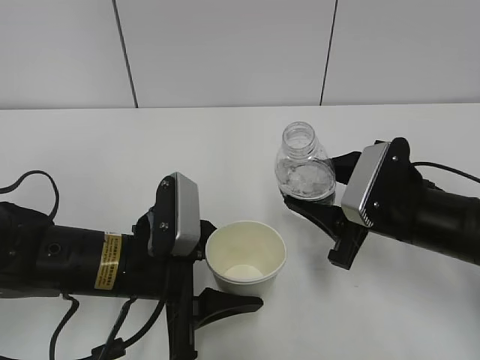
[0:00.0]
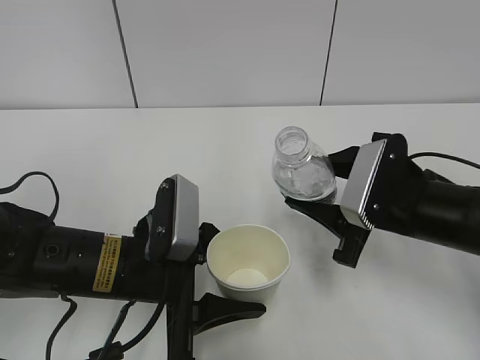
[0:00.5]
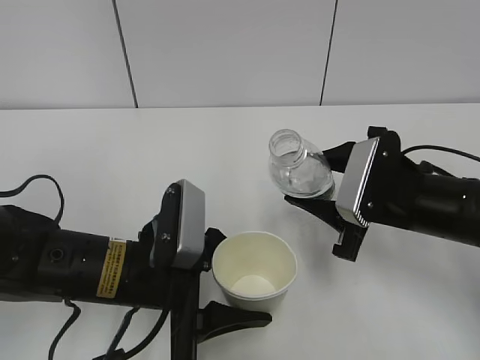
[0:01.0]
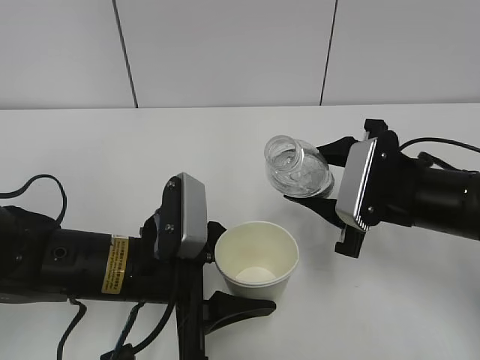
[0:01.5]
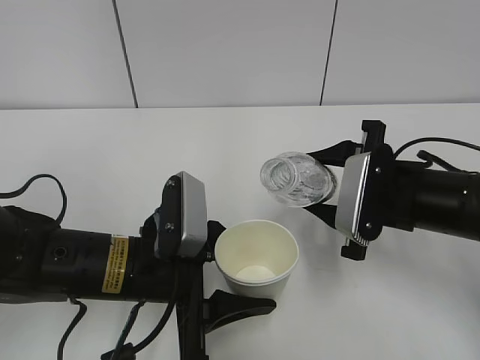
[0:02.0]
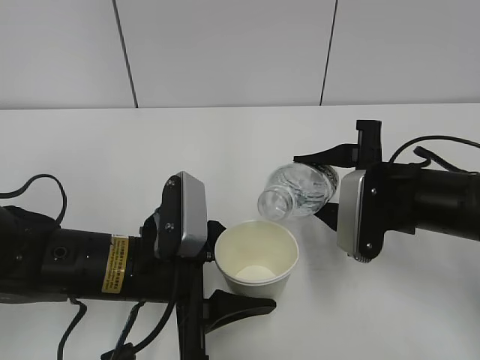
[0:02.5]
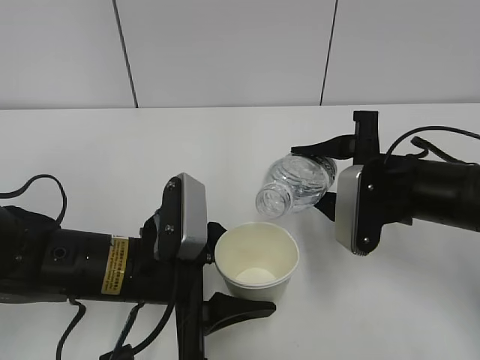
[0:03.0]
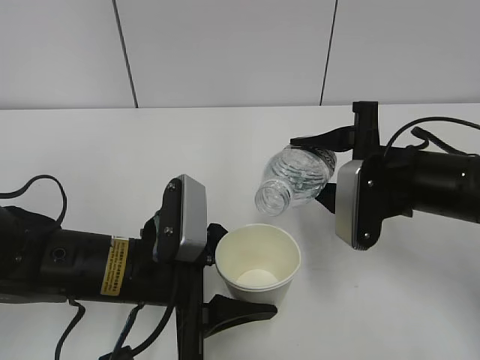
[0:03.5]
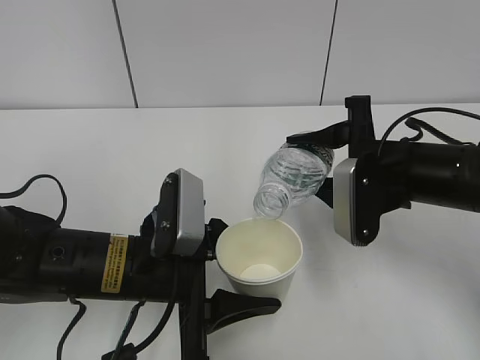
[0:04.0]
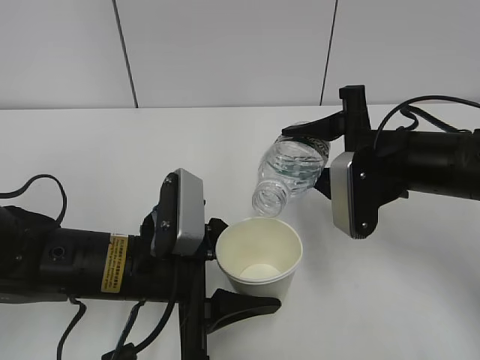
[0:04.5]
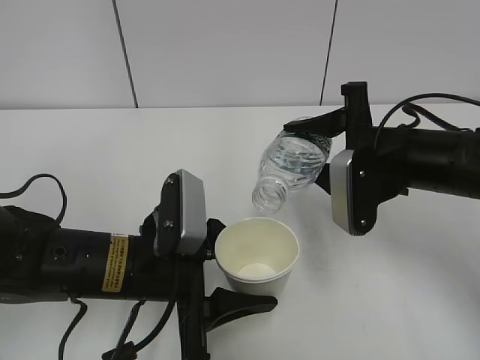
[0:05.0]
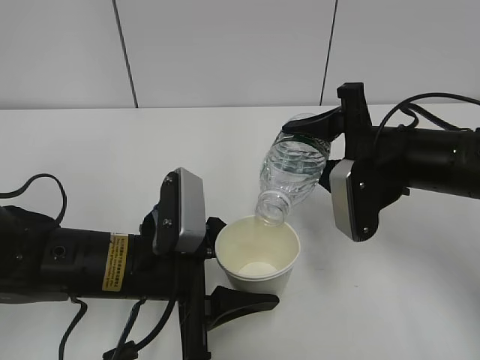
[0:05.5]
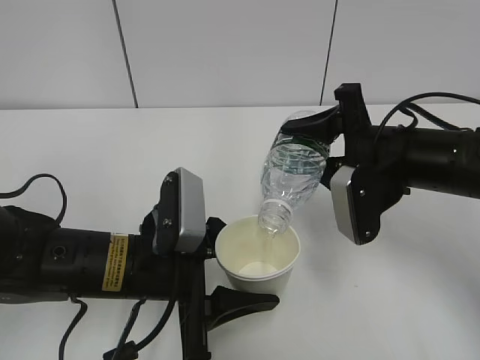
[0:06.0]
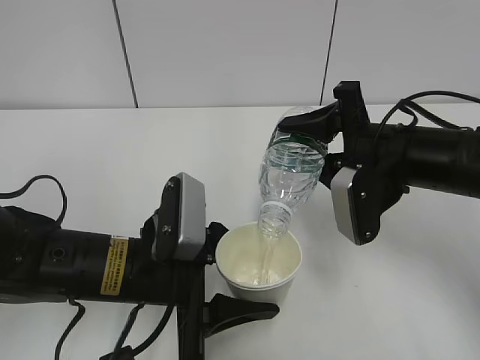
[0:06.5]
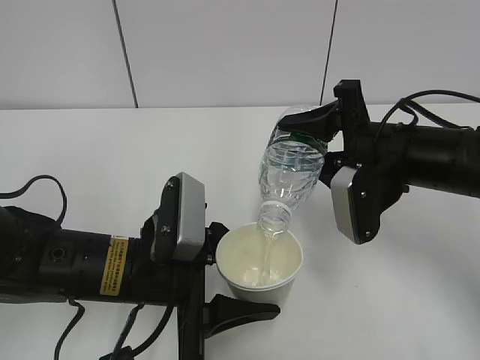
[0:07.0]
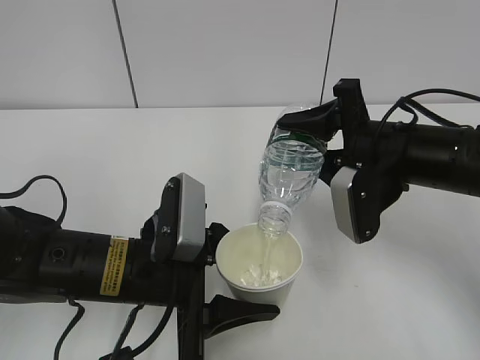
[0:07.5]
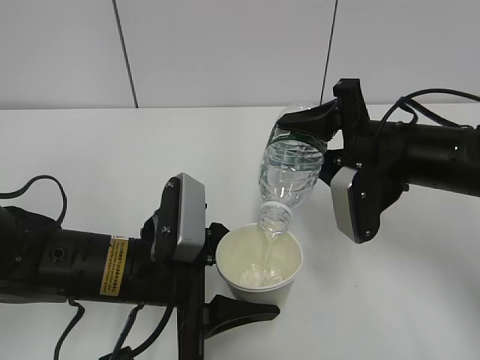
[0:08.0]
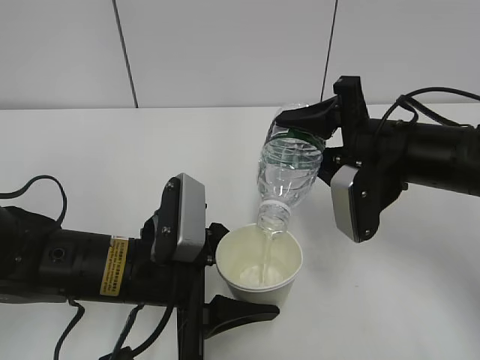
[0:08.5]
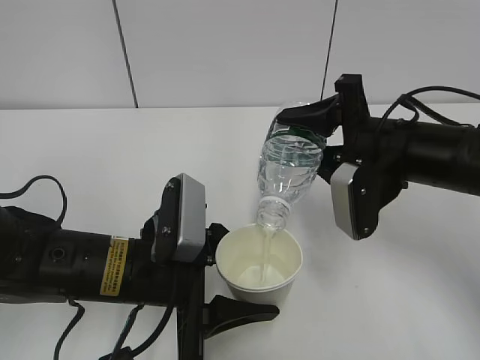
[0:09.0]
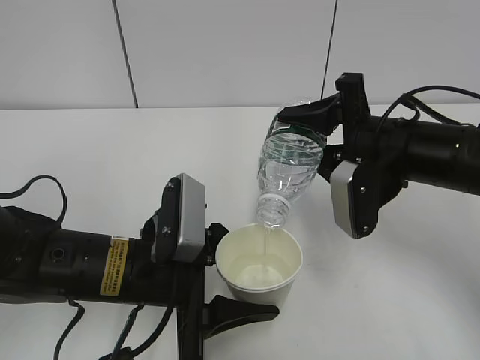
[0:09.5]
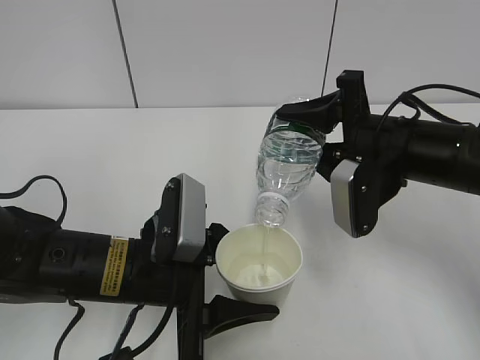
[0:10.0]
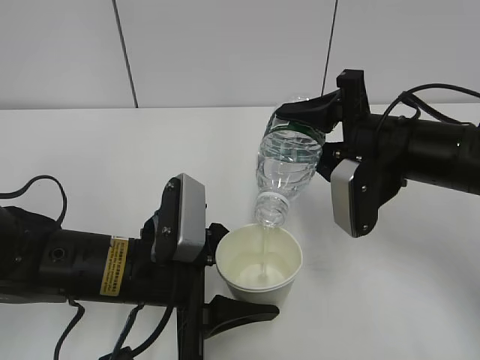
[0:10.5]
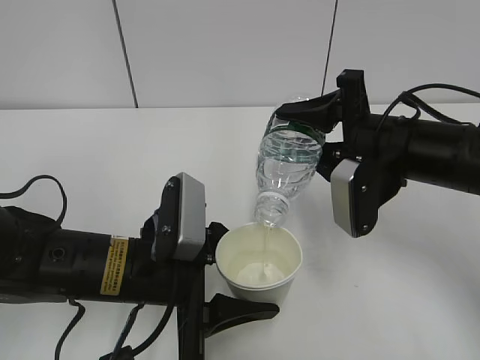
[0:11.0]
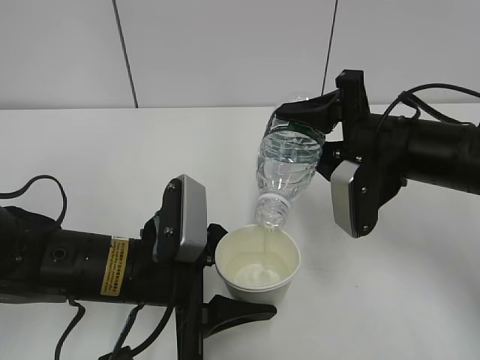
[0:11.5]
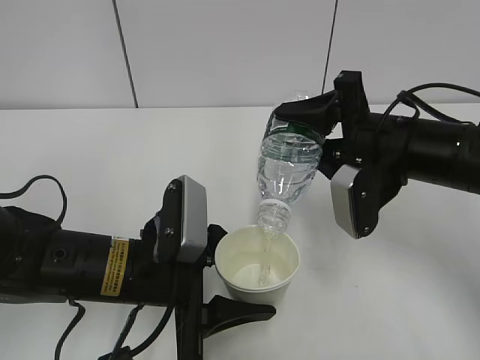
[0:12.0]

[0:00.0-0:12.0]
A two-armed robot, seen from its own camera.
Step, 0:01.5 to 0:07.0: Fill water with the left hand.
Step, 0:01.5 to 0:07.0: Pour water with the right hand.
Step, 0:07.5 to 0:08.5: Collect water with the right hand.
Step, 0:09.0 to 0:11.5: Place the water bottle with the right hand.
0:04.0 to 0:06.0: There are only small adjustments of the grippers.
0:06.0 to 0:08.0: Both grippers stay about where they are.
0:08.0 to 0:10.0: Both grippers stay about where they are.
0:10.0 to 0:12.0: The grippers move only a little.

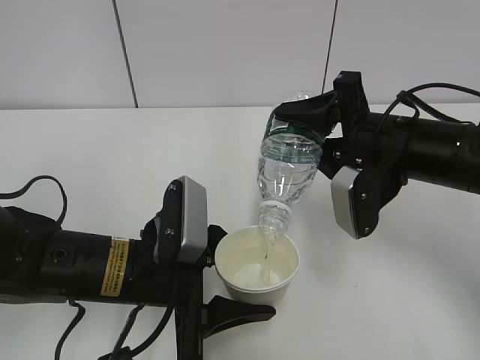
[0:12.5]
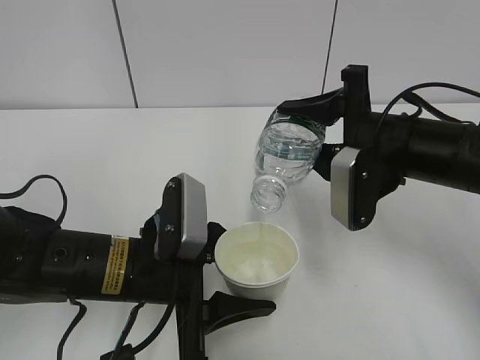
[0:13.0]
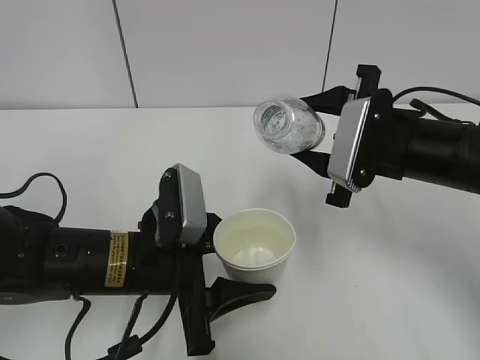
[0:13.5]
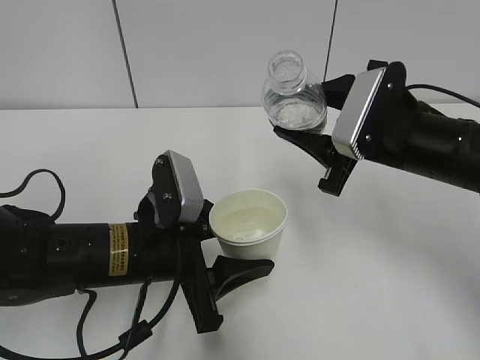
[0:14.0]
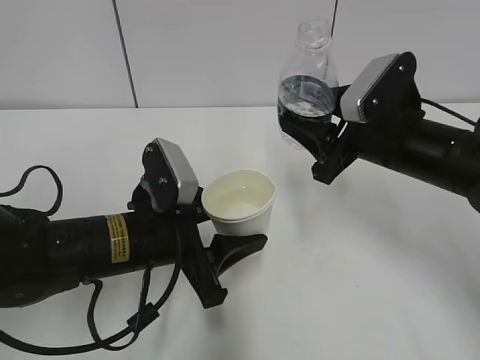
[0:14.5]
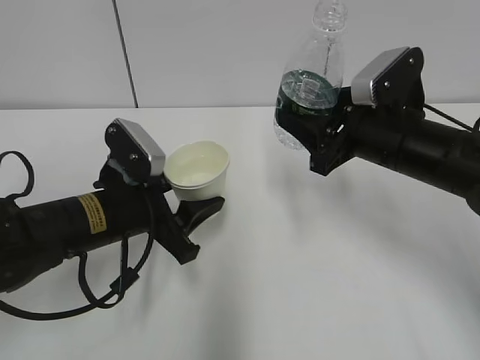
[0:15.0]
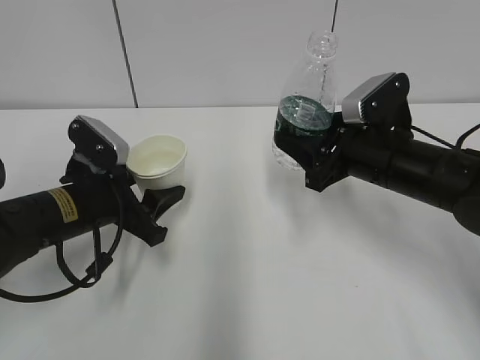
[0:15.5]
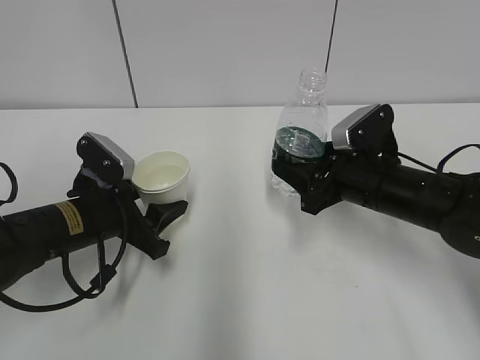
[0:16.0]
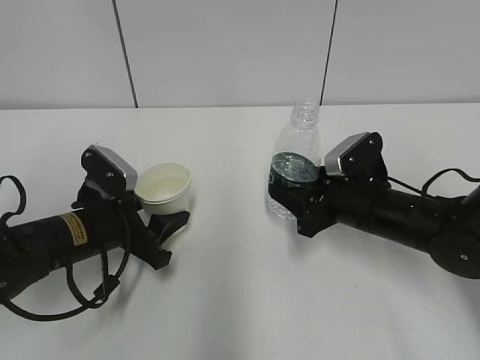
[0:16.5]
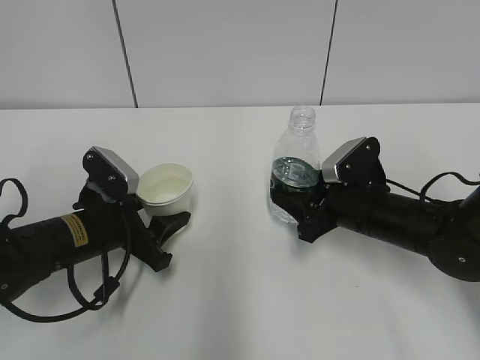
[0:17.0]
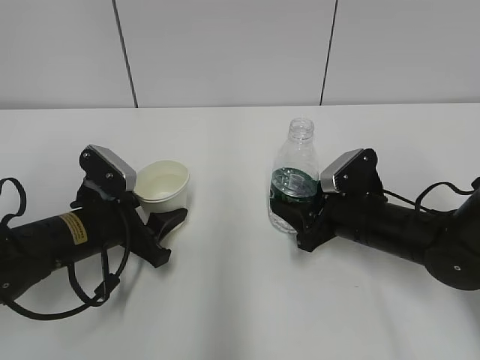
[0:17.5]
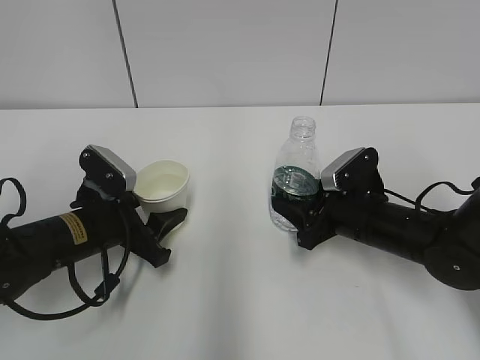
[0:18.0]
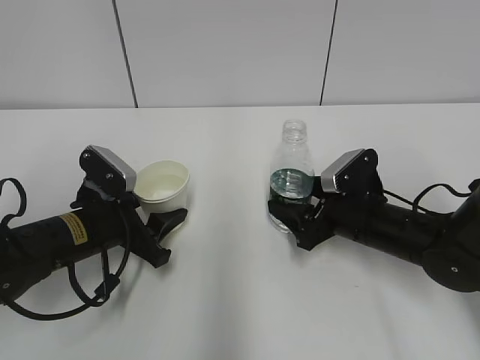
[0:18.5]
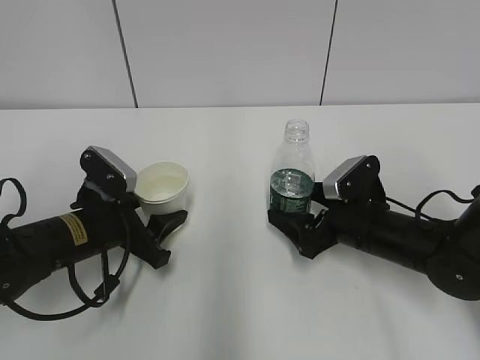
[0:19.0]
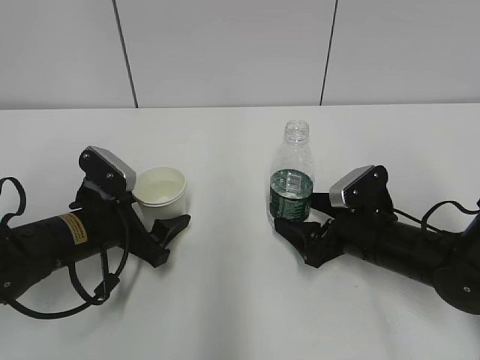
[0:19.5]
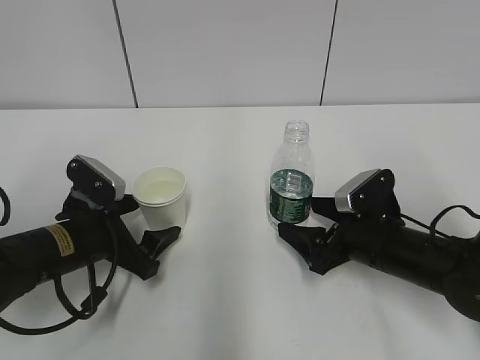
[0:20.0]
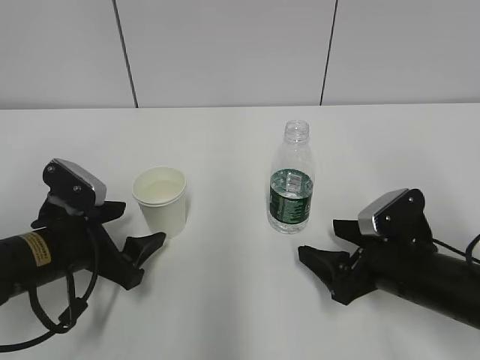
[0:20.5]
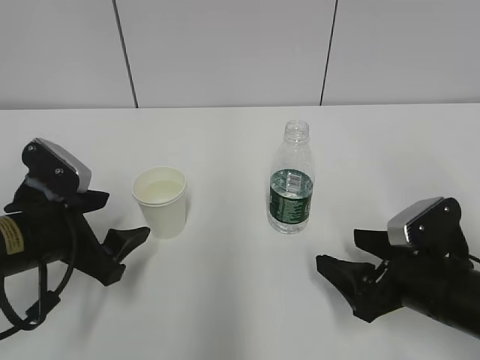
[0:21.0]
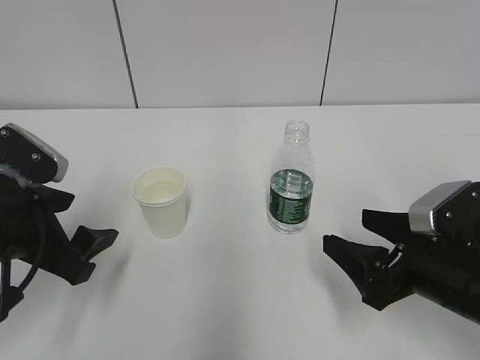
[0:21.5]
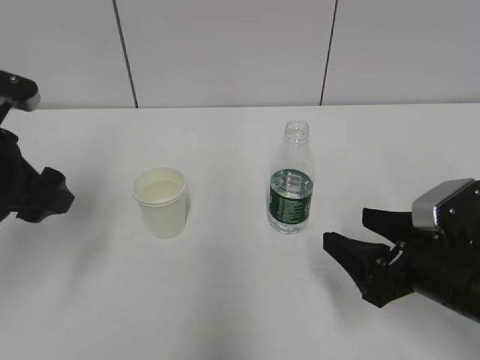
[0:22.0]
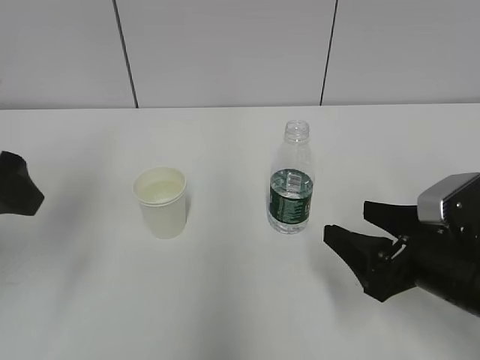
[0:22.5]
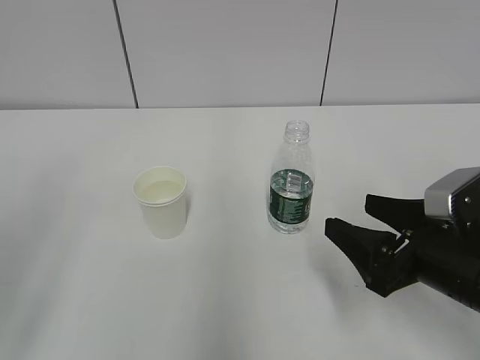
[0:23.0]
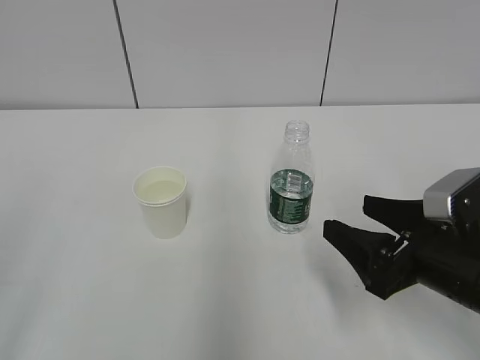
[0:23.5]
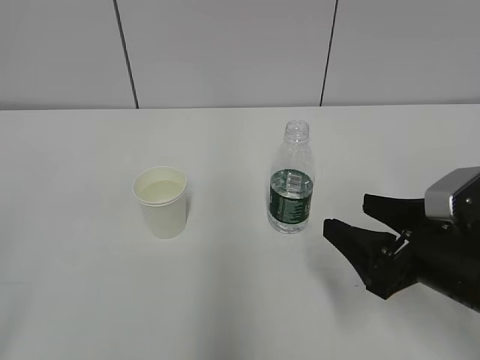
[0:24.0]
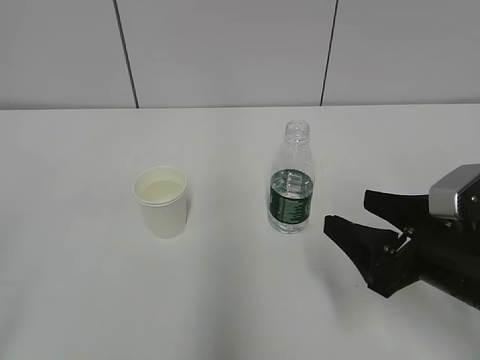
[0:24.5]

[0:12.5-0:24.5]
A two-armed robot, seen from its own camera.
0:14.5 to 0:16.5: The right gripper shifts roughly 10 cm downward. The left gripper shifts about 10 cm to the left and forward.
0:16.5 to 0:18.5: The right gripper opens up.
0:18.5 to 0:20.5: The left gripper opens up; the right gripper moves backward, approximately 10 cm.
0:20.5 to 0:22.5: The left gripper moves upward, approximately 20 cm, while the right gripper shifts about 5 cm upward.
0:22.5 to 0:24.5: The left gripper moves backward, approximately 25 cm.

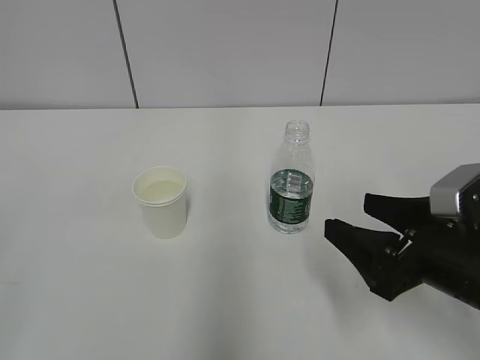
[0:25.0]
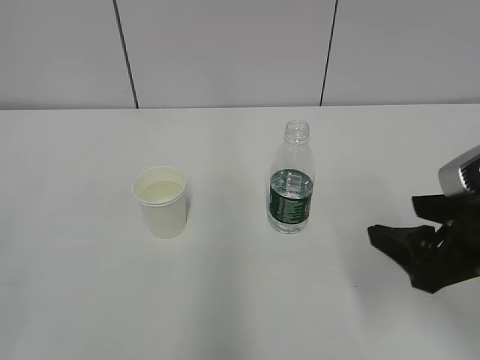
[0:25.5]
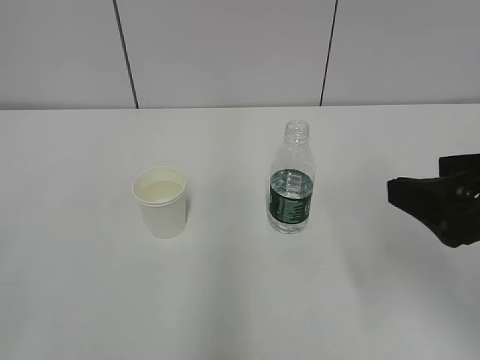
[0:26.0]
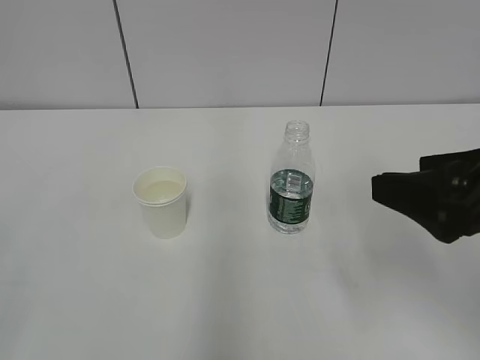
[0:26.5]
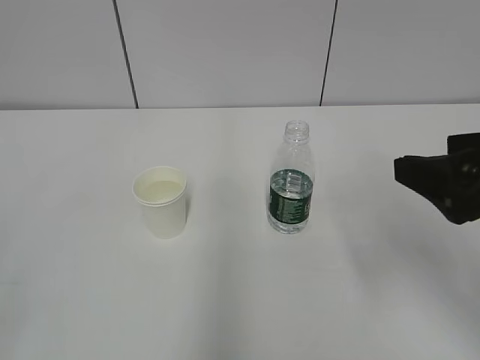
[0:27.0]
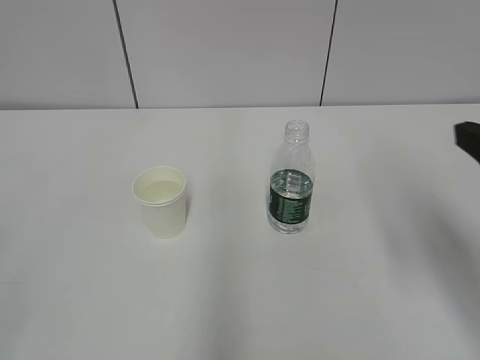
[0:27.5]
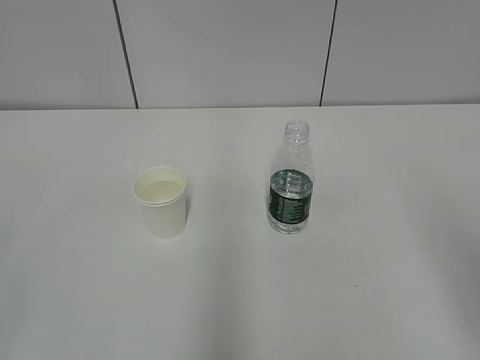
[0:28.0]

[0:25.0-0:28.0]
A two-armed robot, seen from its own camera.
0:25.0 to 0:26.5: The right gripper travels upward by roughly 10 cm.
0:26.5 to 0:28.0: The right gripper goes roughly 10 cm backward and to the right.
